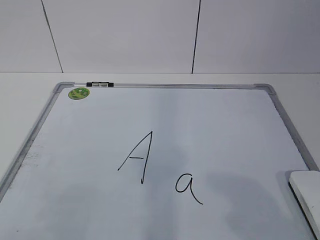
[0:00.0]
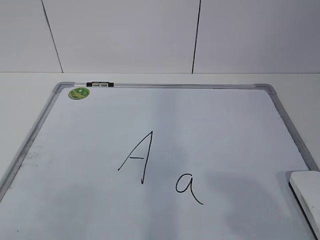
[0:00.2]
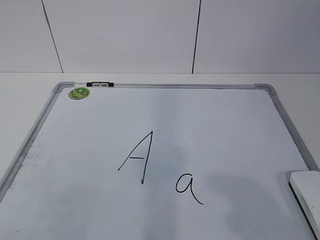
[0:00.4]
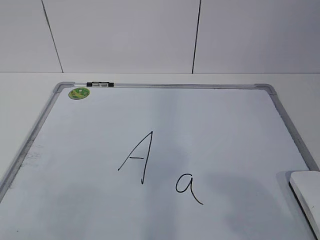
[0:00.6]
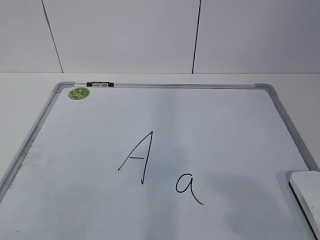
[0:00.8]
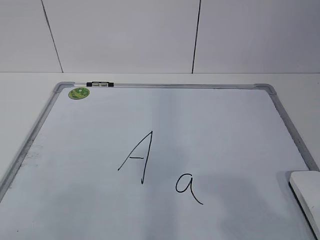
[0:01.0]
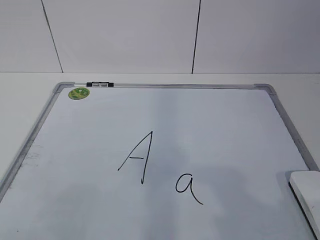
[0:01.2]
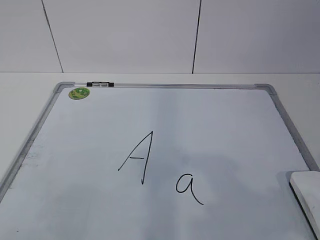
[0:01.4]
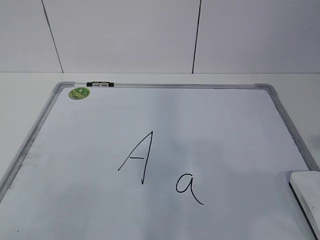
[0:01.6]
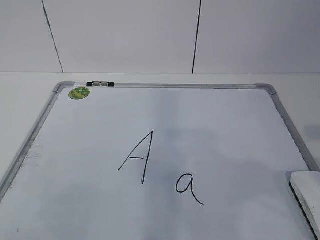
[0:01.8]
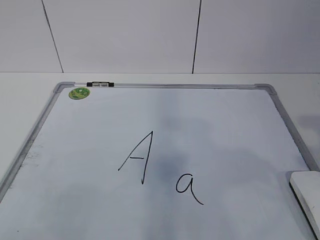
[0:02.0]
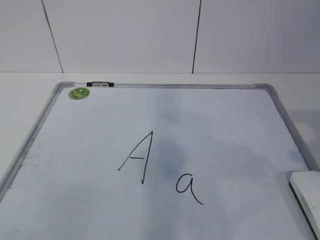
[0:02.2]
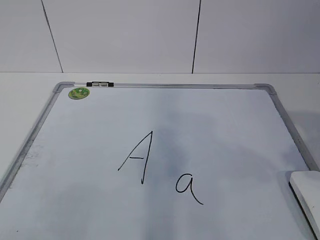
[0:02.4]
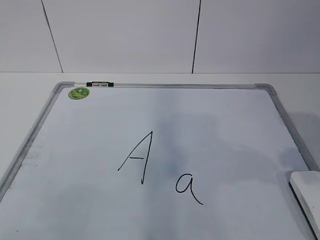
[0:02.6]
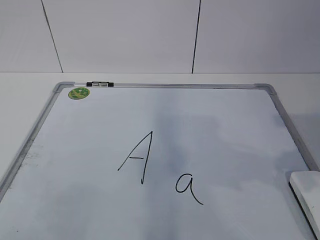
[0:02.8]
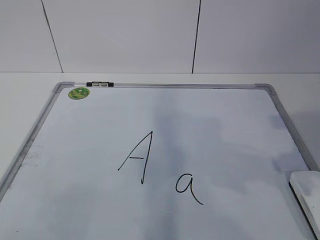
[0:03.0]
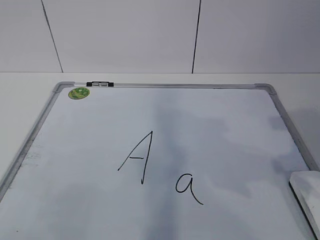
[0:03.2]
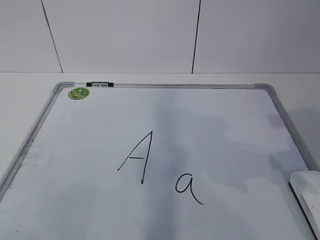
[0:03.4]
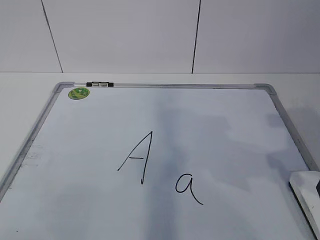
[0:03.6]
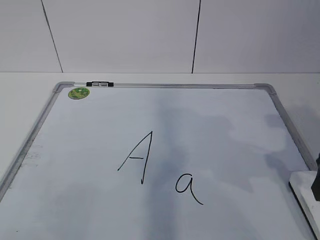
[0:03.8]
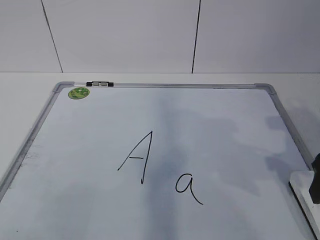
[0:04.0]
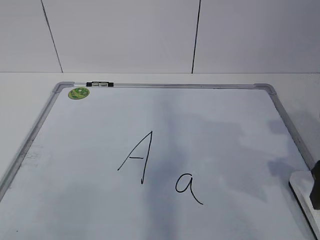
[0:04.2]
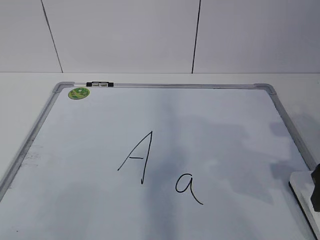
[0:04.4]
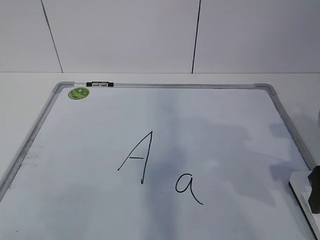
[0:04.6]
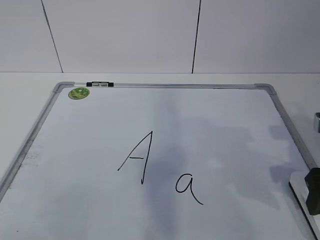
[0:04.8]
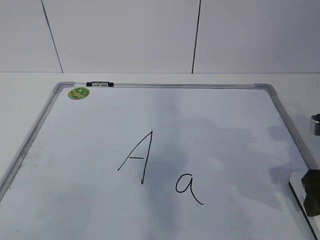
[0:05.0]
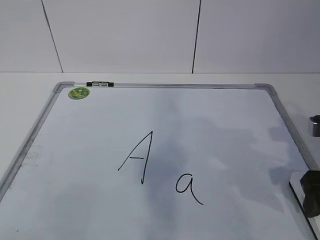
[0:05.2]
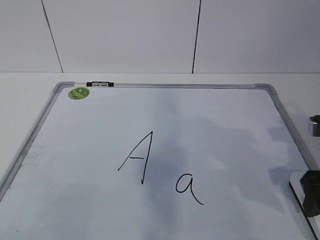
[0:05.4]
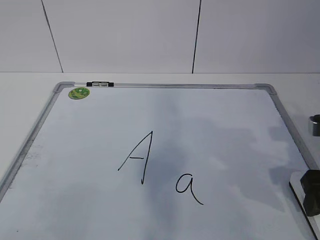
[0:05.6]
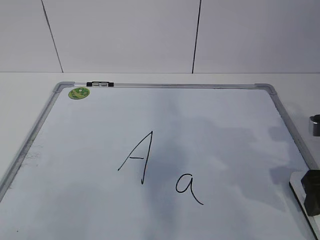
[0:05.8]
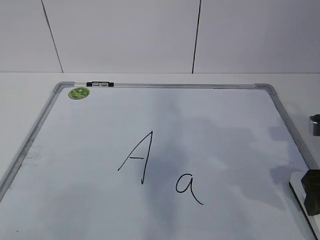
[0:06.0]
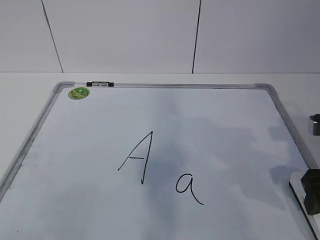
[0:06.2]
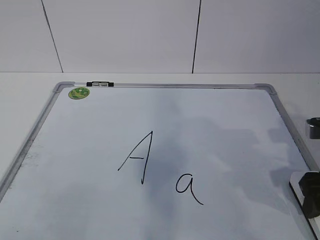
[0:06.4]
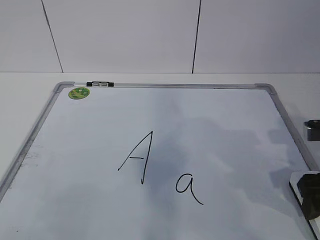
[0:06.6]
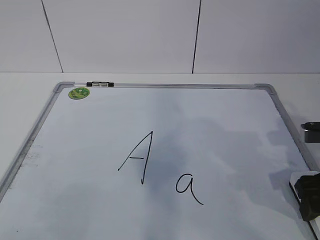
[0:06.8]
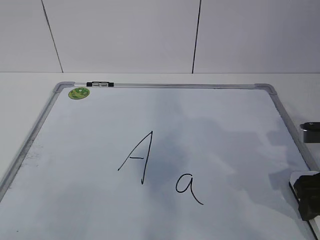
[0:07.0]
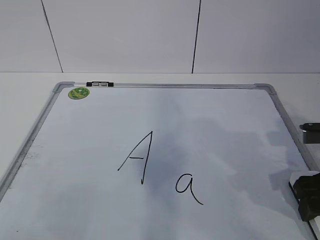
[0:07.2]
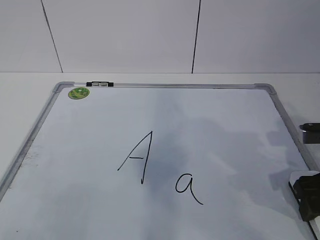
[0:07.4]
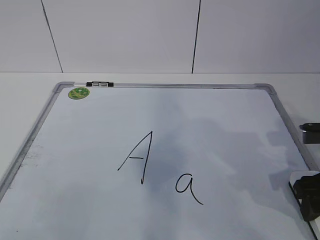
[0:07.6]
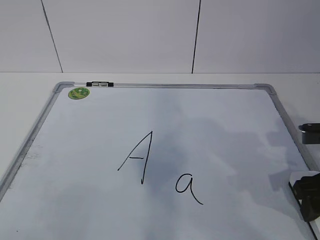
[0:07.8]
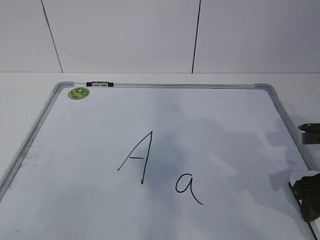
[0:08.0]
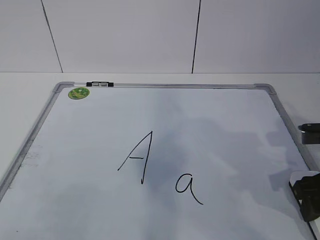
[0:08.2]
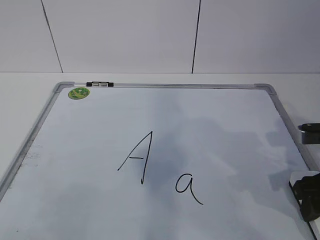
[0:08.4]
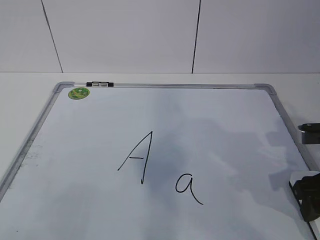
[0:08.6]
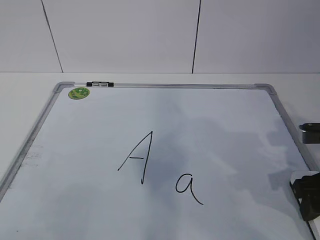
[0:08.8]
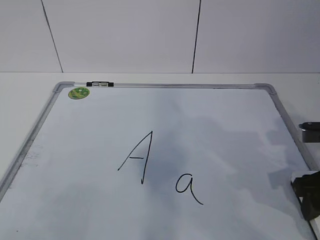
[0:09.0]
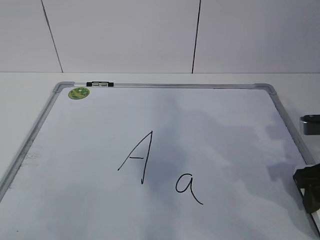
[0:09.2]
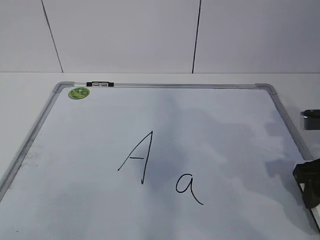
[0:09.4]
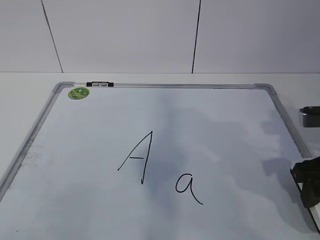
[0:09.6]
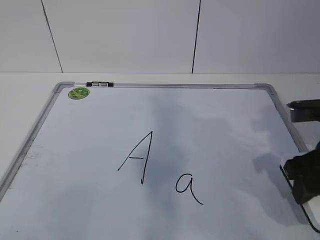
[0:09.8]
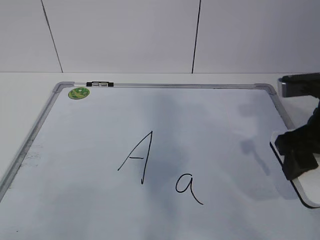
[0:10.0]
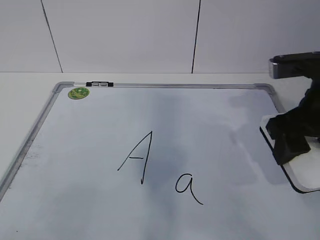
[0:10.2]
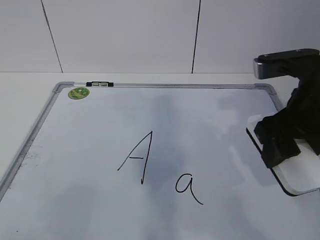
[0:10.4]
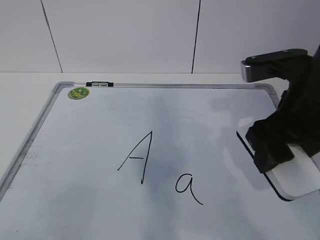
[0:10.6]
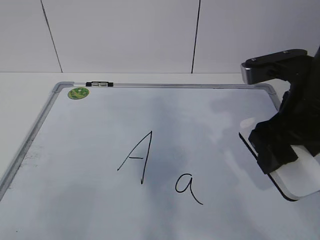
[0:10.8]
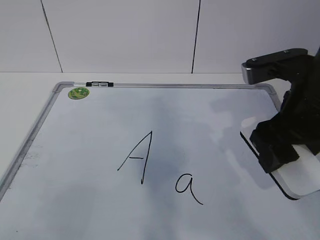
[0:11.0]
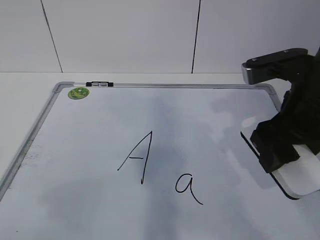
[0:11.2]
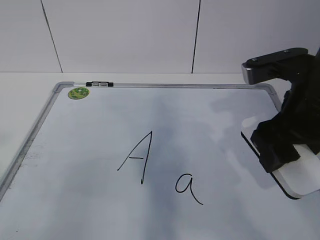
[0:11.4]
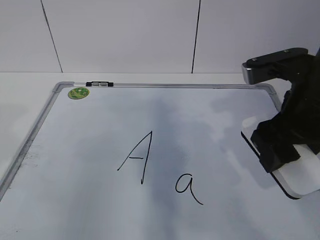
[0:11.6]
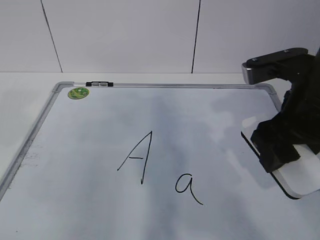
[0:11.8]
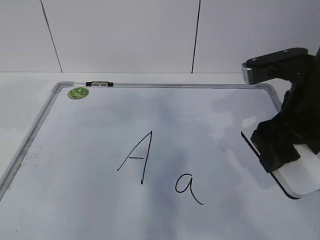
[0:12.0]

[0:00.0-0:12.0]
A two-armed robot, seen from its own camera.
Task of the whole recording: pick up the eraser on the blackboard and erase the letter "a".
0:06.0 to 0:07.6: The right gripper closes its fingers.
0:09.0 to 0:10.4: The right gripper travels upward and to the left by roughly 15 cm.

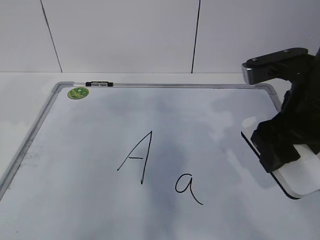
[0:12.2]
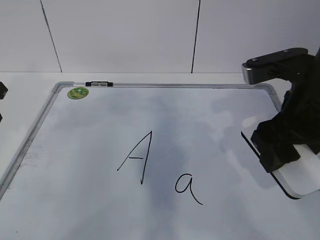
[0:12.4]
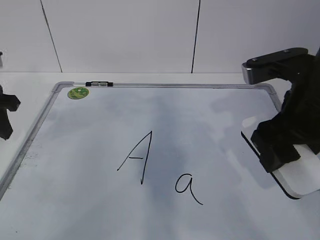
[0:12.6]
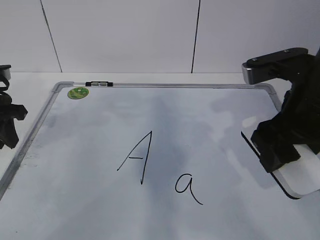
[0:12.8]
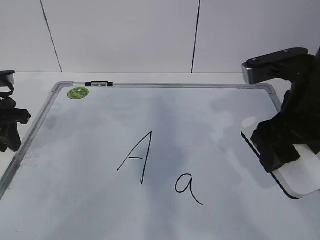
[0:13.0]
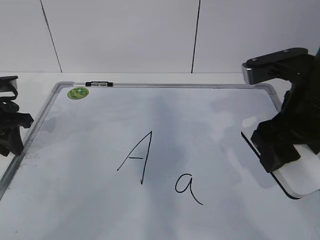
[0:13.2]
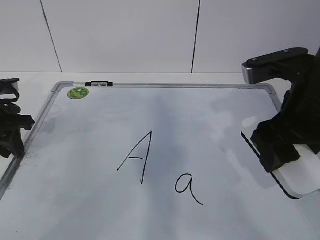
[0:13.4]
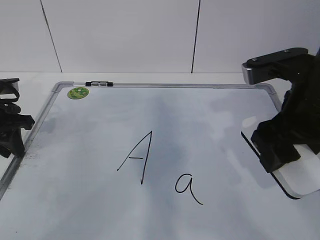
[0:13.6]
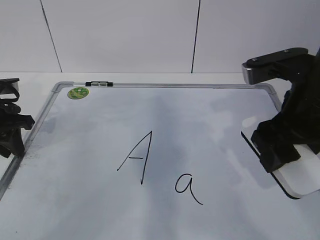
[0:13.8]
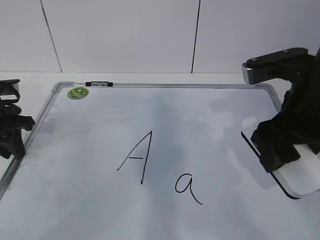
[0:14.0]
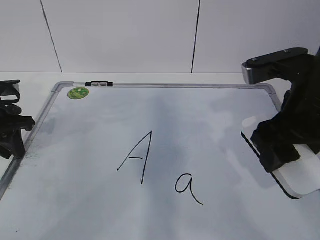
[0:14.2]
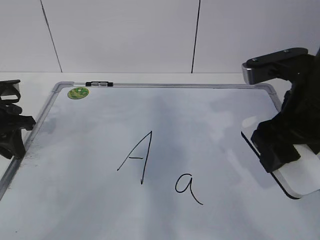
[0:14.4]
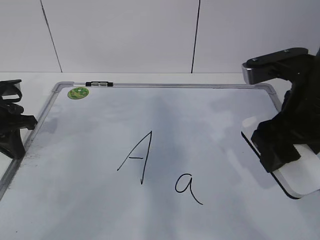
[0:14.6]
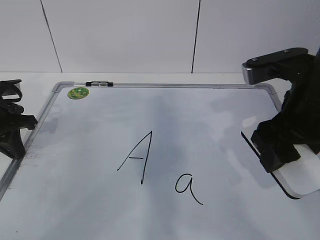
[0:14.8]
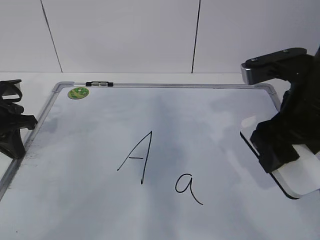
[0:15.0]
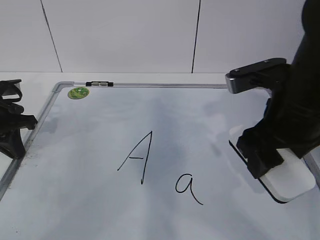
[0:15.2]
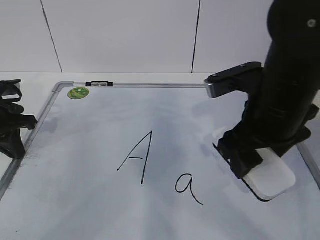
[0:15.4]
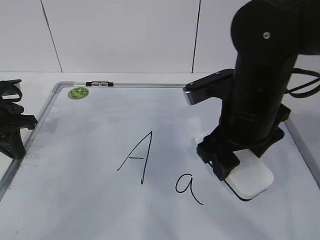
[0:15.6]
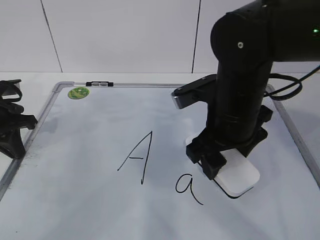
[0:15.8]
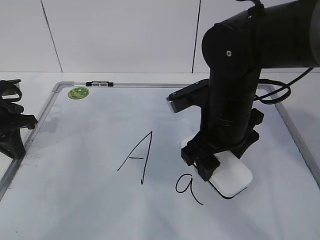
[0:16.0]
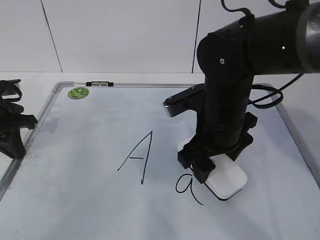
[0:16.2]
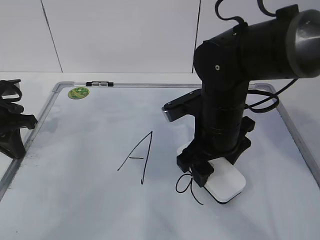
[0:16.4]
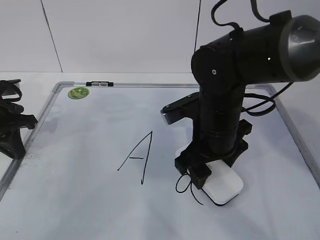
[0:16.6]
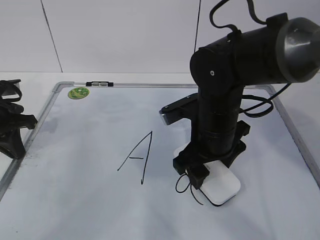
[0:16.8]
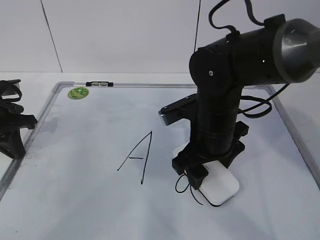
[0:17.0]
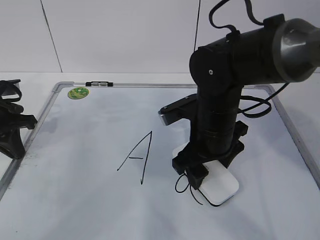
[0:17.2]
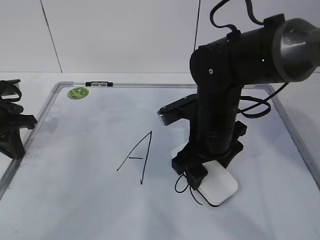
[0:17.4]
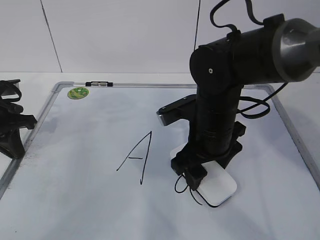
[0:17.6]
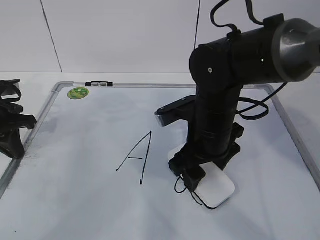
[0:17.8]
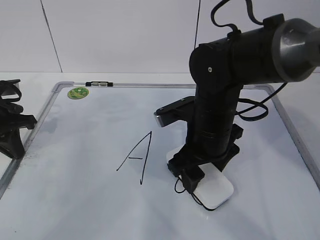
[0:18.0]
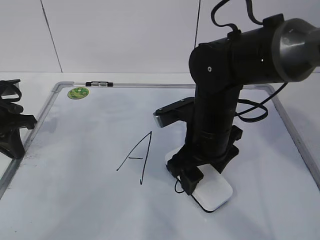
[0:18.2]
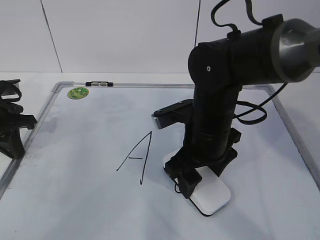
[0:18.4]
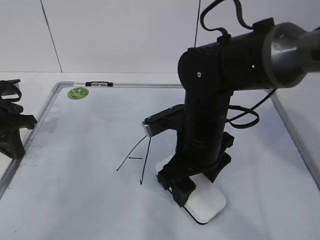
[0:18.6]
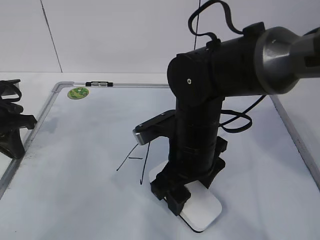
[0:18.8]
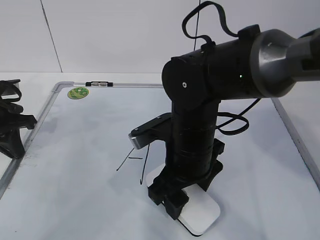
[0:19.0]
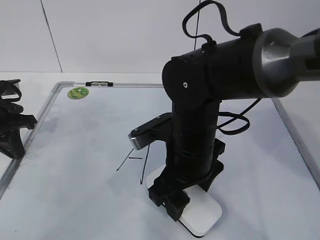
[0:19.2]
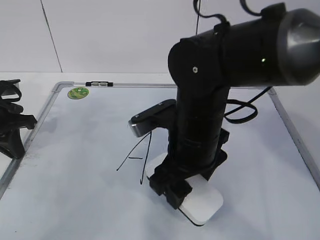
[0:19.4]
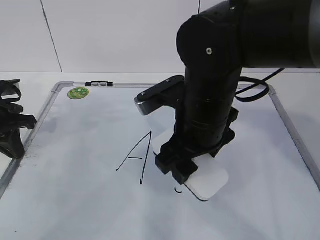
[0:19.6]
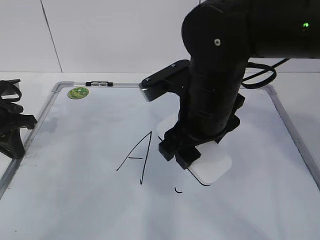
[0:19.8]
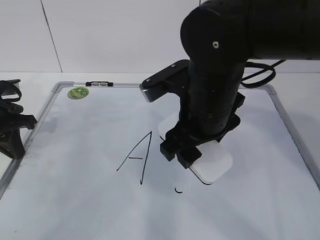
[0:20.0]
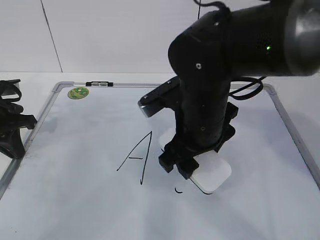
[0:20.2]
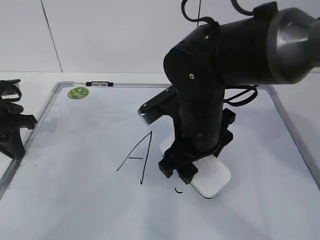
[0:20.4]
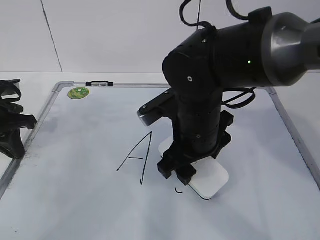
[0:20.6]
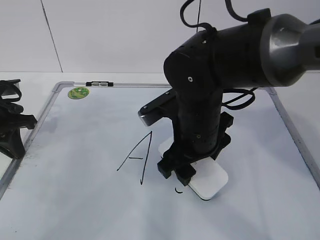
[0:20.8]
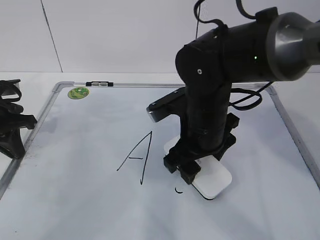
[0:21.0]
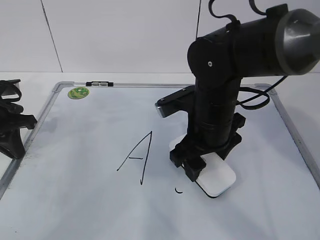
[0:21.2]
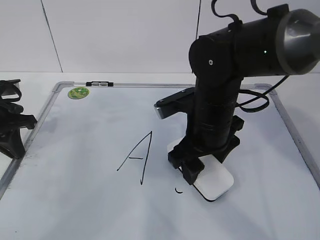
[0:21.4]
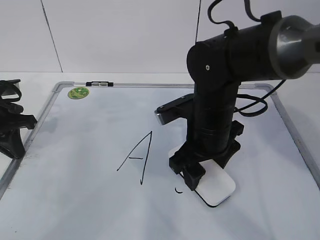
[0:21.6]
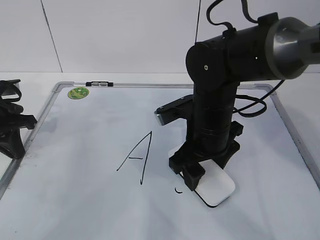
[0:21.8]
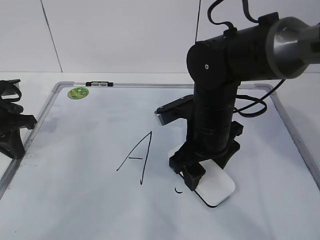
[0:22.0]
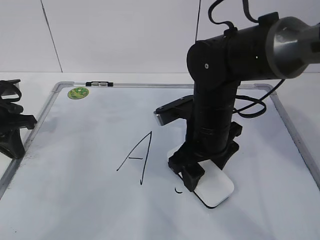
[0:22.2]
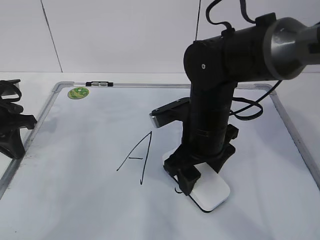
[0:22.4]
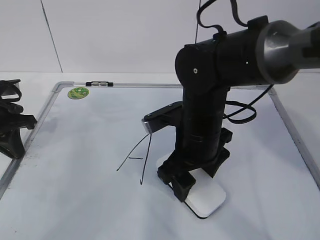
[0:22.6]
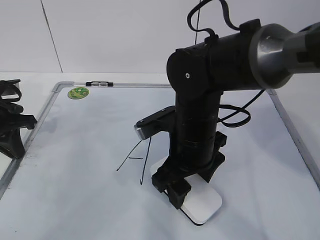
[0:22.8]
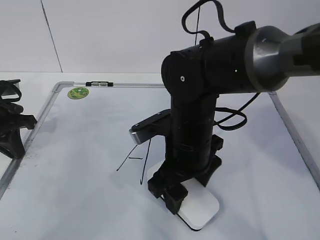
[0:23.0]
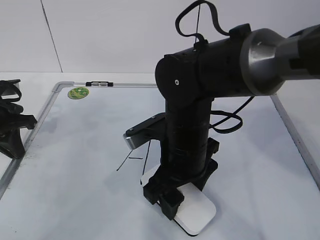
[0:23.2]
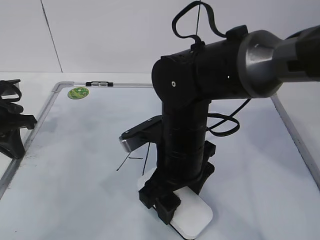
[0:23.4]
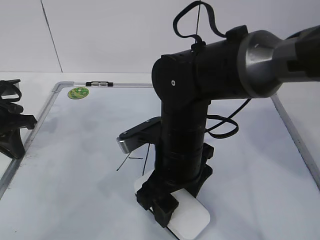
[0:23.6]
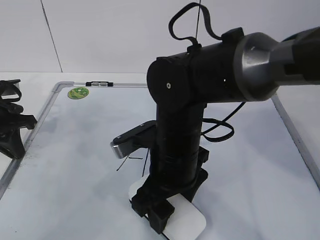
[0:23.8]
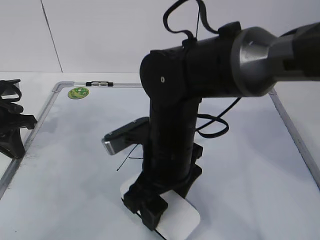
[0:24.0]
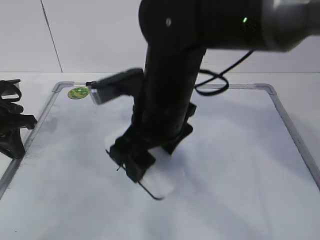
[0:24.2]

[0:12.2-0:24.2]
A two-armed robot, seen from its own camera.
Task of the whole recording: pick up the eraser on the blackboard and erase the letter "a".
Step, 0:12.4 to 0:19.8: Erase the letter a with your right hand.
0:12.2 to 0:13.8: The left gripper is displaced downward and forward by some 15 cm.
0:13.8 to 0:15.2: The left gripper closes.
0:15.2 to 0:16.6: The right gripper is displaced downward, to the left and forward by approximately 15 cm.
0:16.6 to 0:18.2: There are only small adjustments of the grippers.
0:18.2 to 0:19.8: The right gripper goes roughly 5 cm upward.
0:19.8 to 0:21.2: The right gripper shifts about 5 cm downward.
0:21.2 to 0:22.6: The grippers make only small movements.
0:22.6 to 0:24.2: The right gripper travels upward and to the left by roughly 10 cm.
